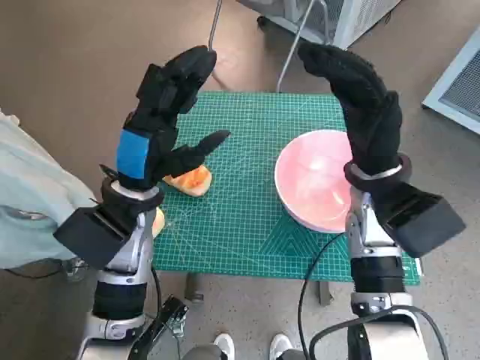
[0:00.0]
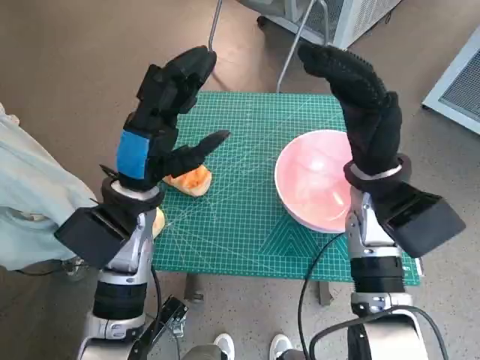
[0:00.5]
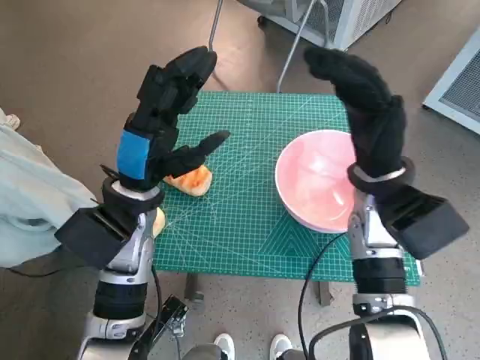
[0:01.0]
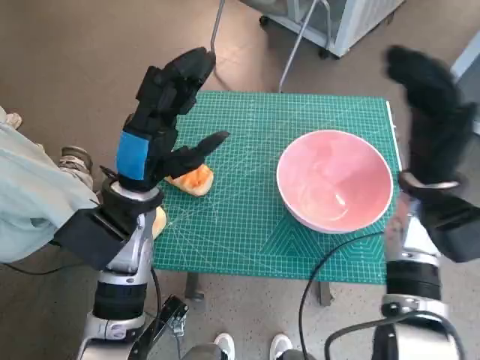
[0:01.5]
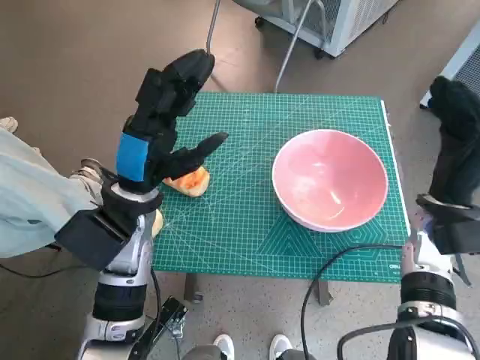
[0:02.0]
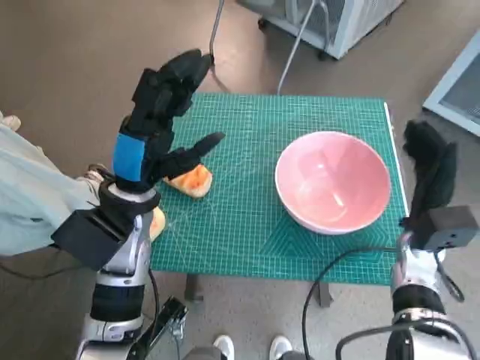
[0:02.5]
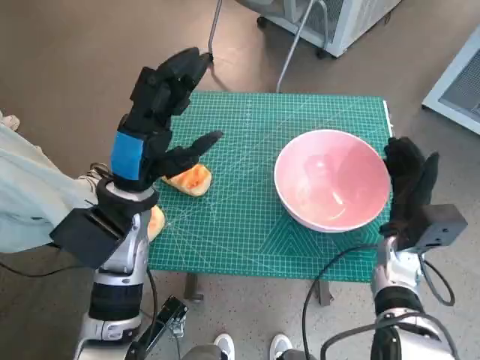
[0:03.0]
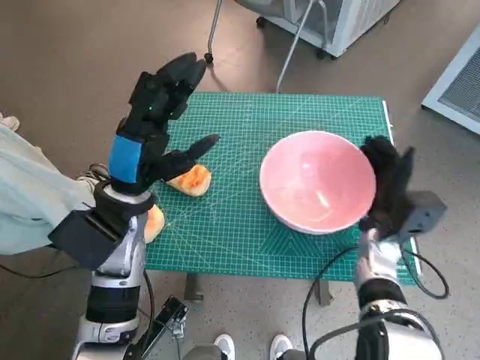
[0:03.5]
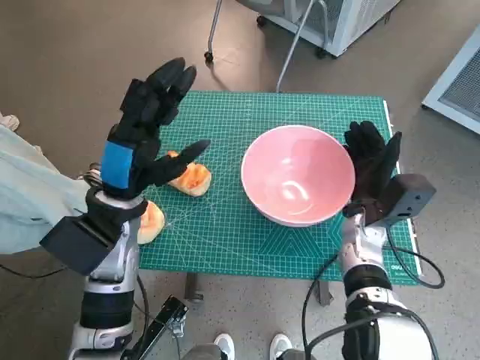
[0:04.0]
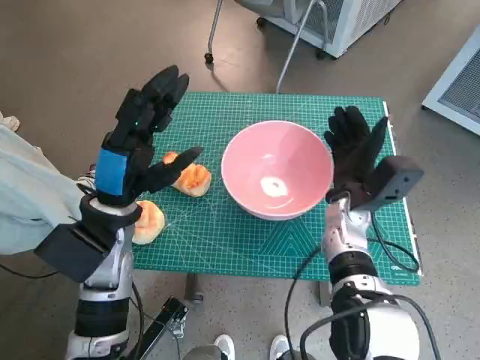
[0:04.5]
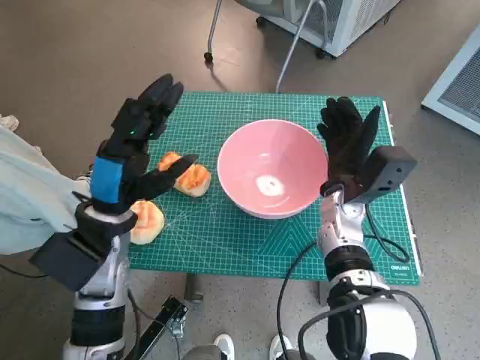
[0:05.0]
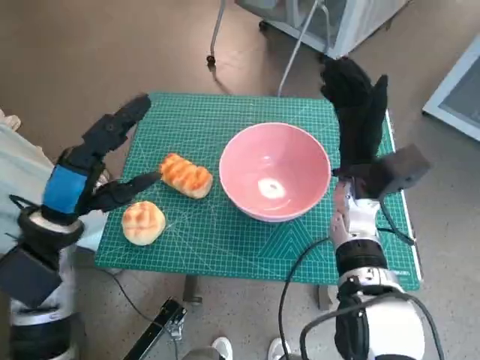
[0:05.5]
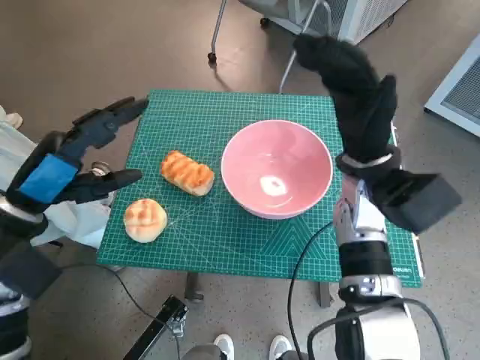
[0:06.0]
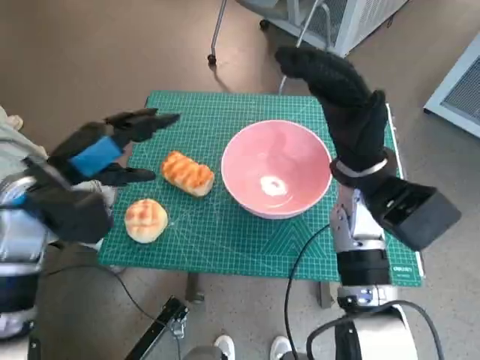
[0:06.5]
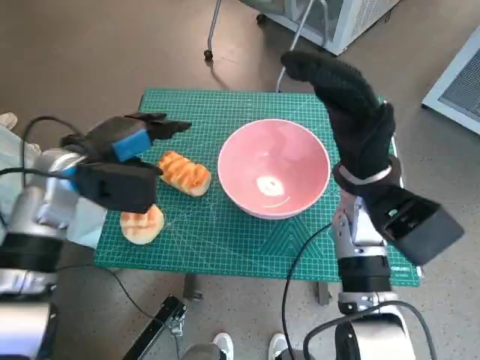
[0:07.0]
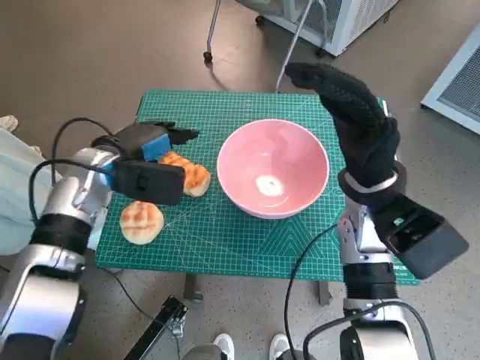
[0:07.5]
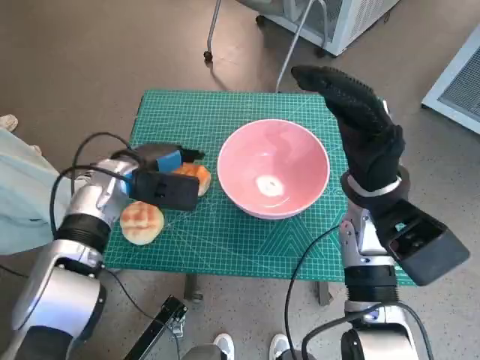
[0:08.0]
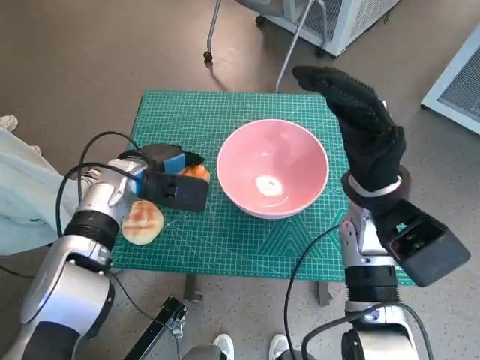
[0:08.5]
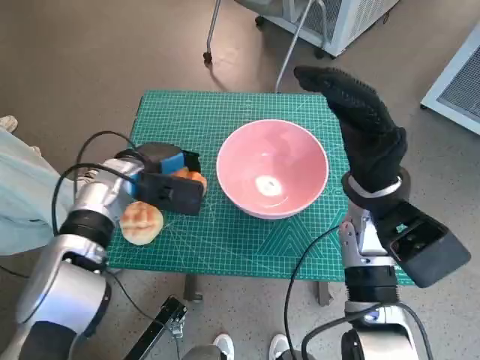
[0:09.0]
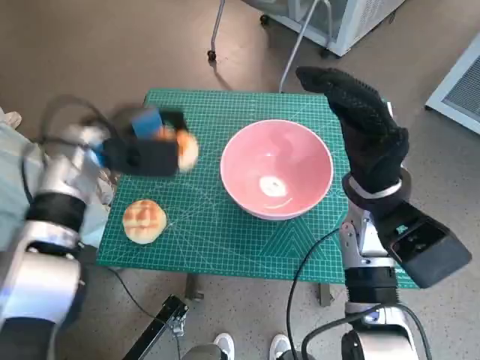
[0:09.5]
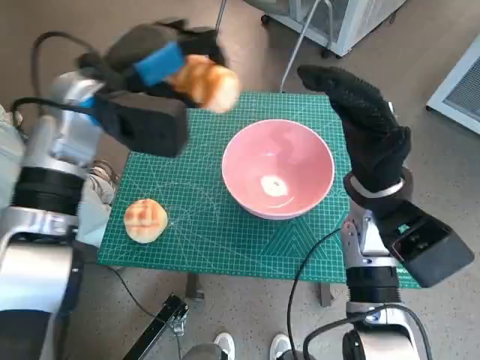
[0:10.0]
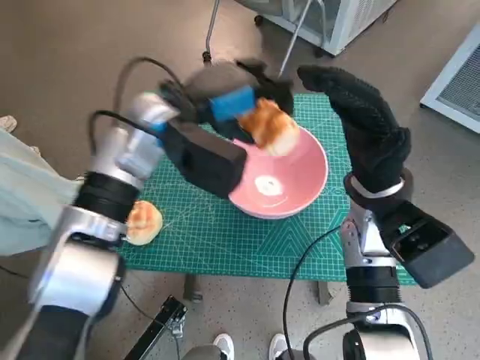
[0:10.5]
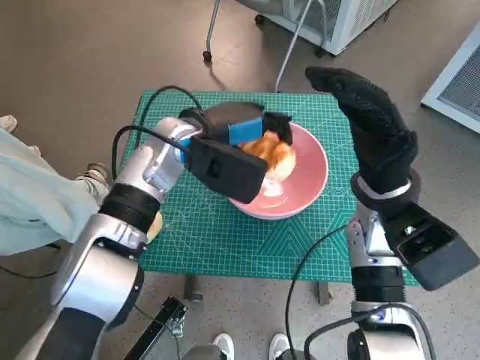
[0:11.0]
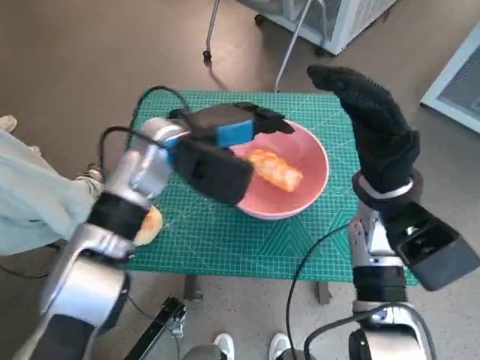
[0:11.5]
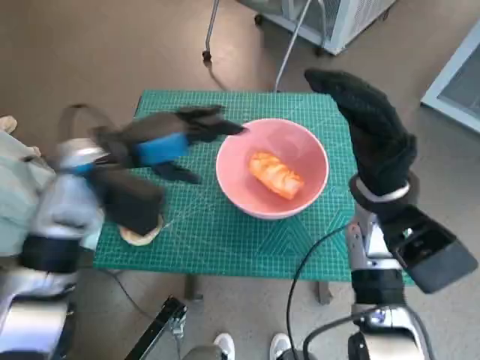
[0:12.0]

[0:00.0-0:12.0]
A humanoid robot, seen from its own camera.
Task of the whole recording: Push the bowl to the center of the table and put the bread into the bowl.
Step, 0.0 to 5.0 s: Move the pink bowl to the center of table with right hand.
Step, 5.5 to 8.5 s: Grasp the long bread with left hand.
Step, 9.0 to 11.5 s: Place the long bread in pink bowl with left hand.
2.0 to 4.0 s: The right hand travels to the left and downward by roughly 10 cm.
4.0 to 6.0 s: The right hand travels upward by about 10 cm. The left hand shifts about 10 cm to the left.
6.0 to 8.0 s: The left hand heads forward, downward and to the right, covering approximately 15 cm.
8.0 to 10.0 s: The left hand is displaced upward by approximately 15 cm.
10.0 to 12.0 s: The left hand shifts about 5 cm downward, and travels to the right and back again, roughly 10 cm each way.

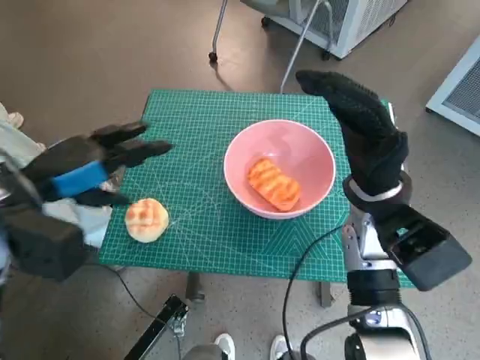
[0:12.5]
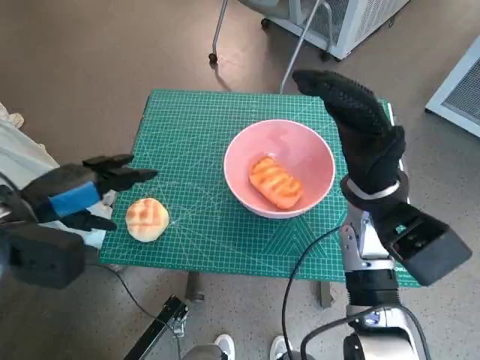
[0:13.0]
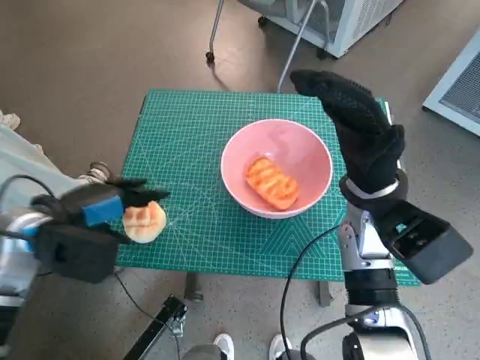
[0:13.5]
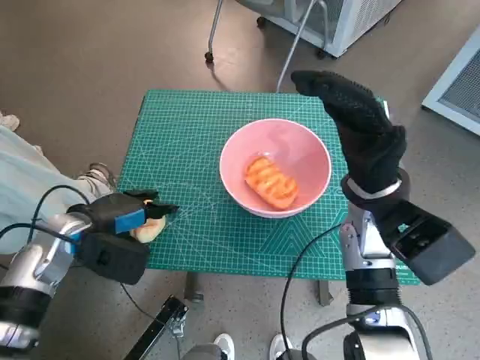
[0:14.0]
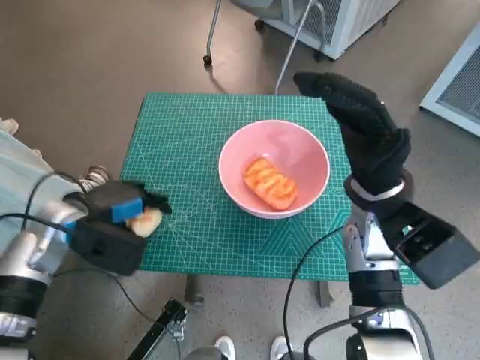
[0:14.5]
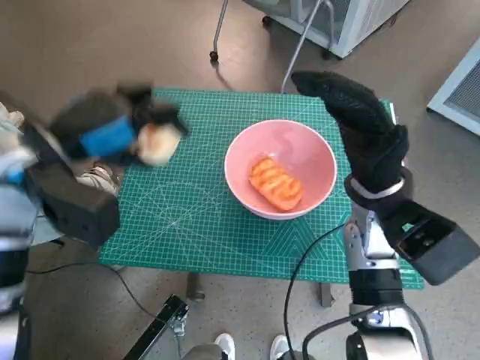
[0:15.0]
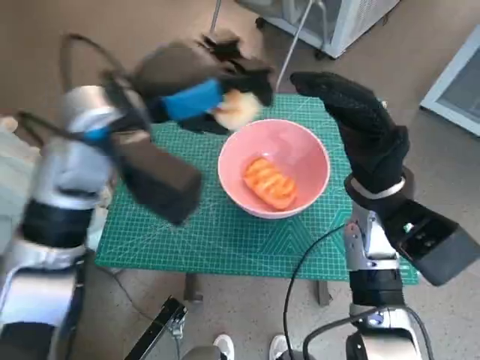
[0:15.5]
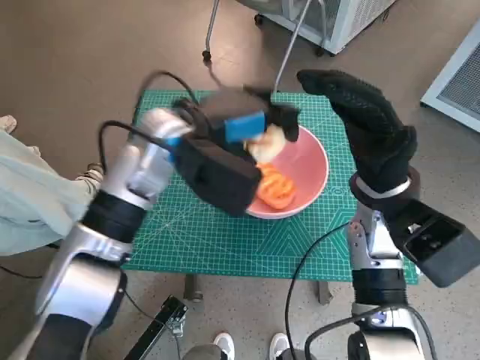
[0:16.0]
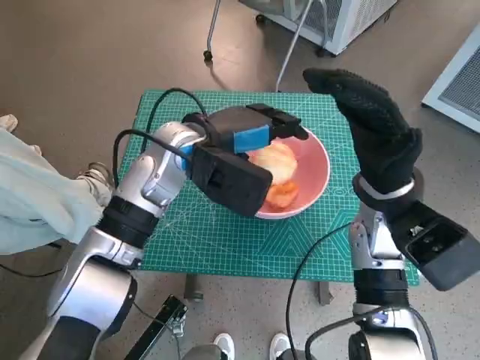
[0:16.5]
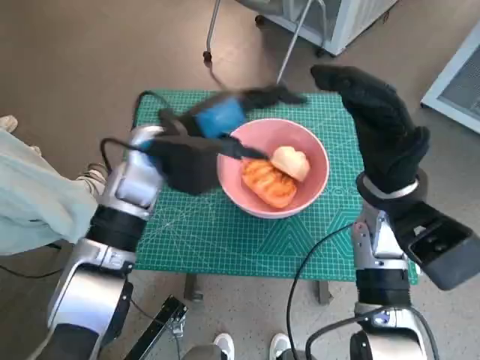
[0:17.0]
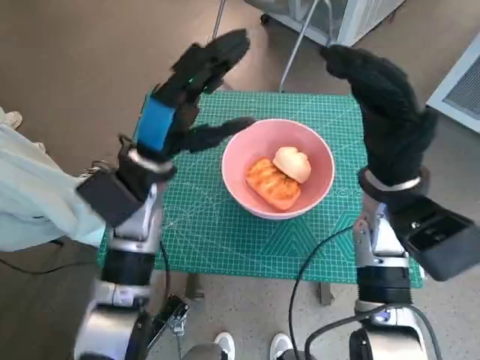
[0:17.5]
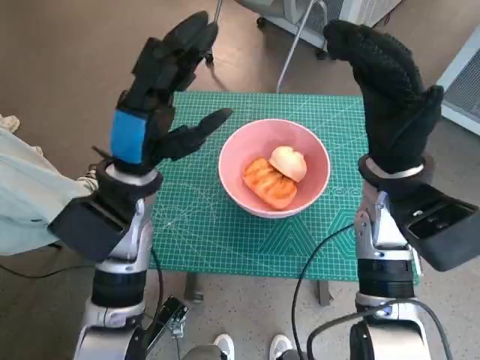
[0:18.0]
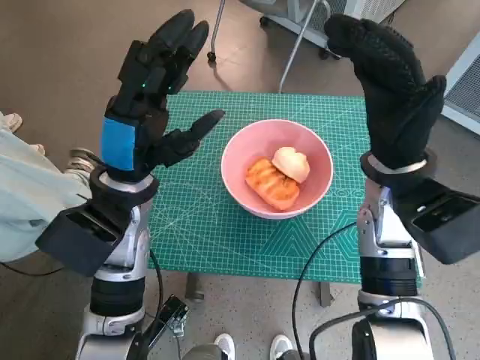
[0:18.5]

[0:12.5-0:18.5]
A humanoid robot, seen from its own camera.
Task of the whole recording: Push the bowl to the center of the table and put the bread into the bowl.
Step, 12.5 to 14.0 s: Grasp the round bread with left hand.
Step, 14.5 to 16.5 s: Place the round bread in pink bowl with left hand.
12.5 to 14.5 s: The left hand is displaced downward by about 10 cm.
14.5 to 16.5 s: The left hand goes approximately 20 cm to the right and upward.
16.5 to 18.5 s: The left hand is displaced backward and to the left by roughly 10 cm.

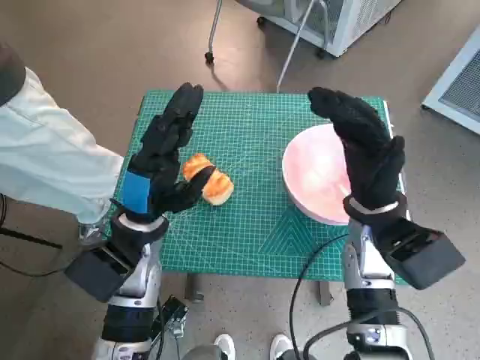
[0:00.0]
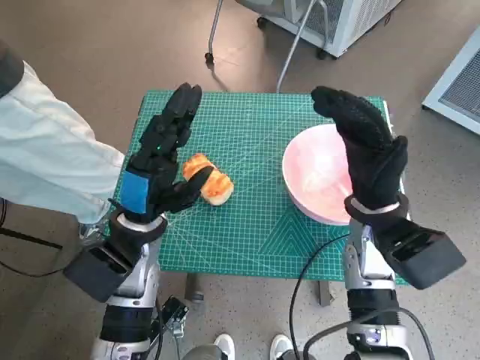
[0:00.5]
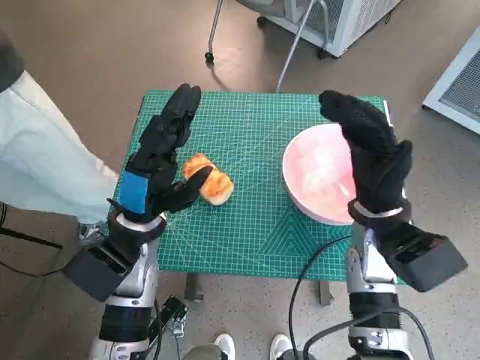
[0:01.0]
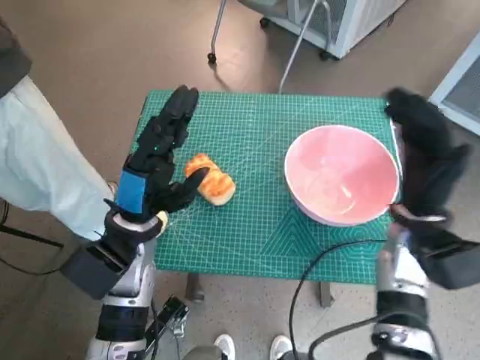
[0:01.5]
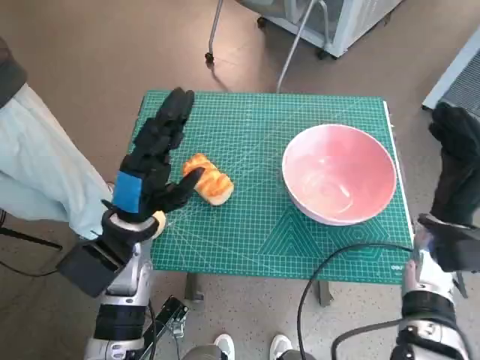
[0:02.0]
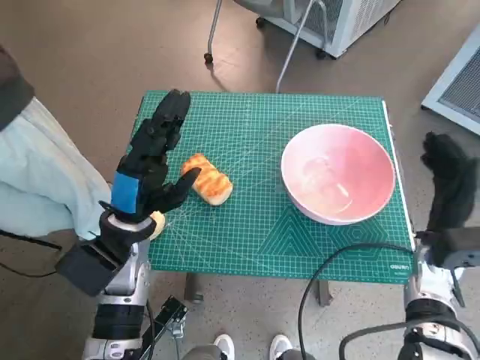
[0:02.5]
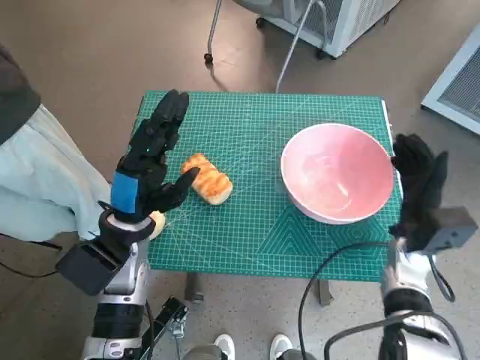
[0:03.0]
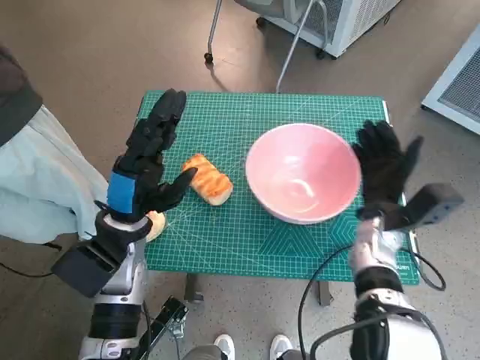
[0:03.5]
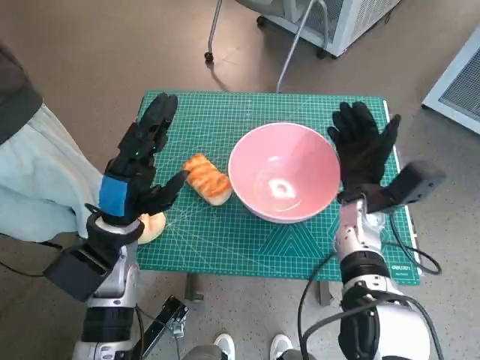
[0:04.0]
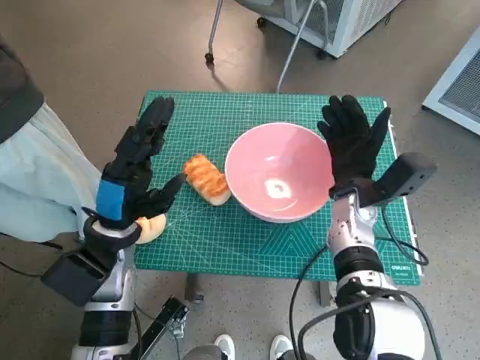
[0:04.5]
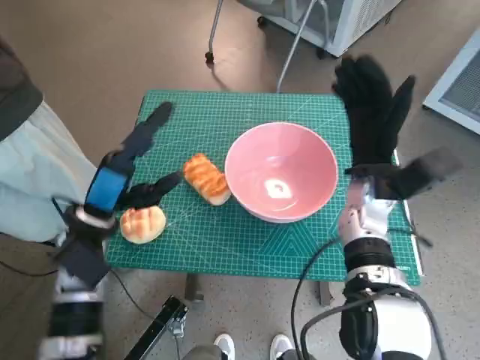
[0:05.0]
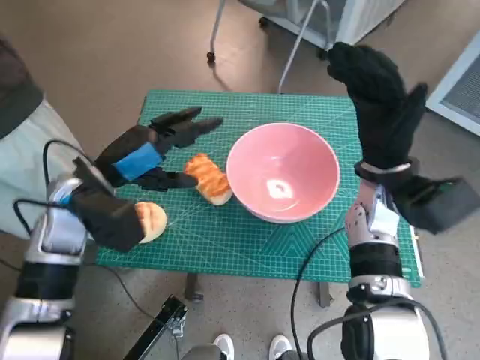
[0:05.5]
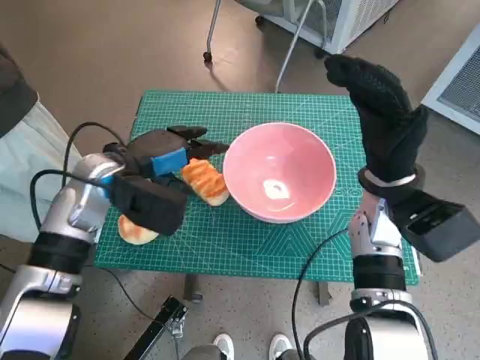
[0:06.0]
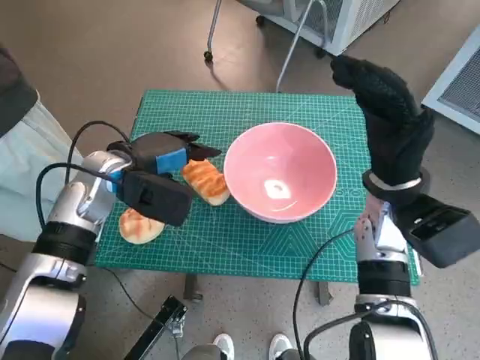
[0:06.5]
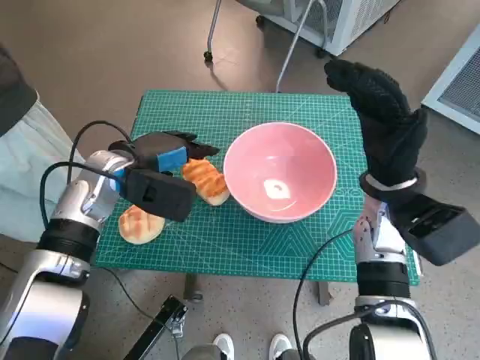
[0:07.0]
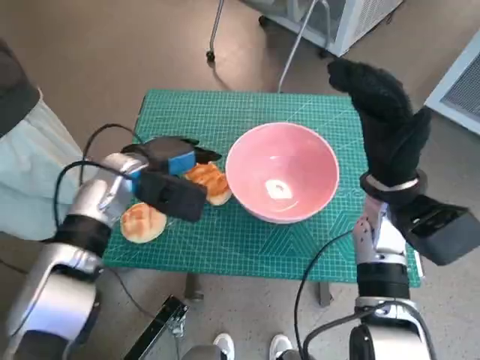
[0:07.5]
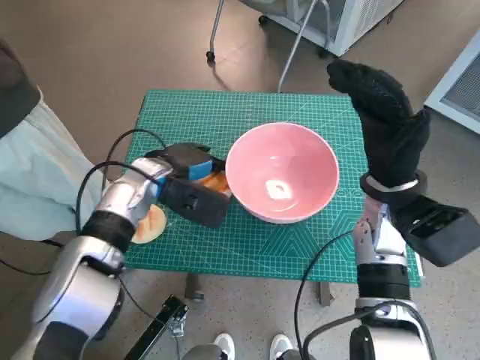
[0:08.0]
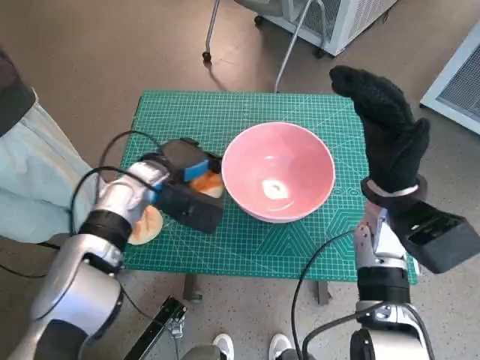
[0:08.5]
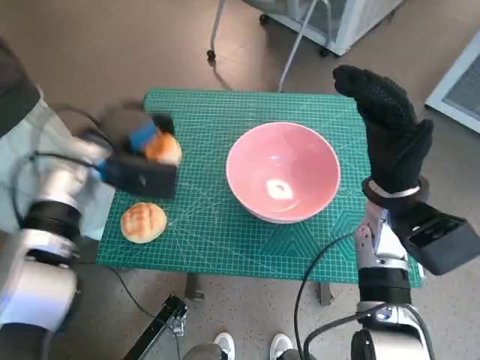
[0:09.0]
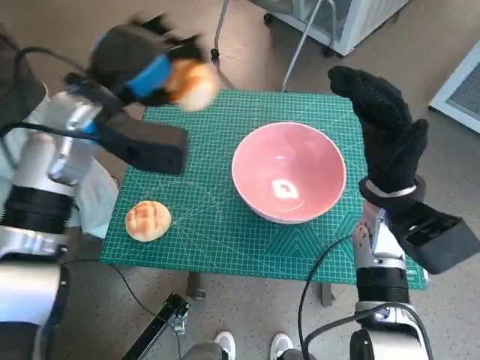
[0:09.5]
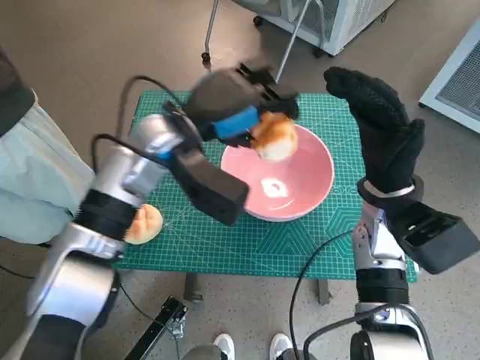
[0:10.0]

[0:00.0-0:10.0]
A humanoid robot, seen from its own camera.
Task of the whole recording: Push the bowl to the center of the table and put the bread into the bowl.
Step, 0.0 to 4.5 s: Move the pink bowl to the center of table with right hand.
Step, 5.0 to 8.0 s: Grasp the long bread with left hand.
2.0 to 4.0 s: The right hand moves to the left, roughly 10 cm.
4.0 to 6.0 s: The right hand shifts approximately 10 cm upward; the left hand moves forward and upward, about 10 cm.
6.0 to 8.0 s: The left hand moves about 5 cm.
8.0 to 10.0 s: The left hand heads upward, covering roughly 10 cm.
